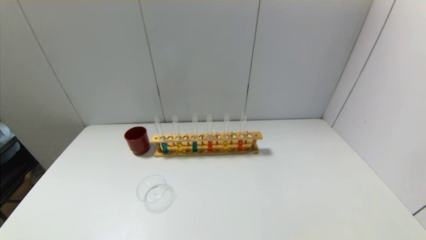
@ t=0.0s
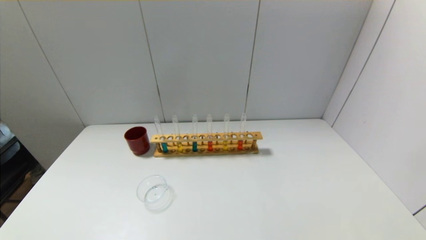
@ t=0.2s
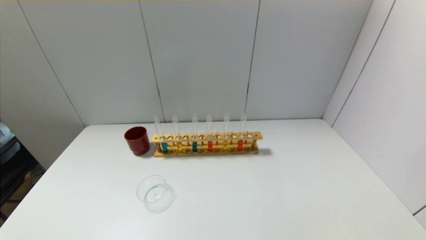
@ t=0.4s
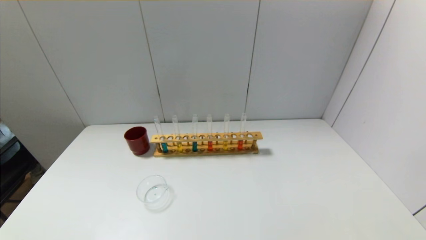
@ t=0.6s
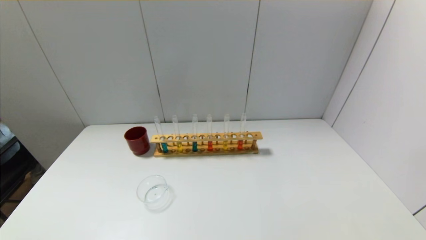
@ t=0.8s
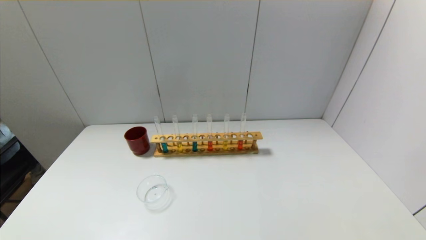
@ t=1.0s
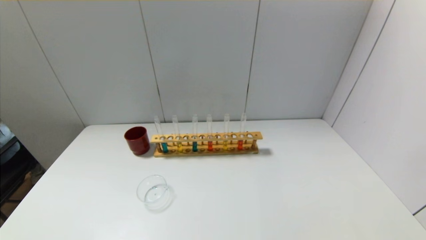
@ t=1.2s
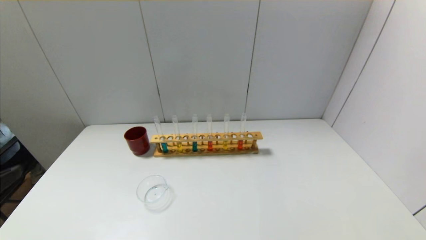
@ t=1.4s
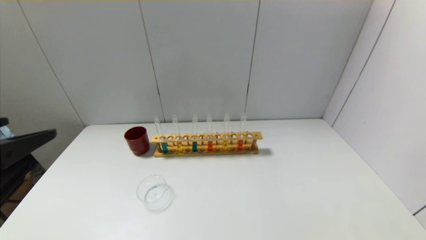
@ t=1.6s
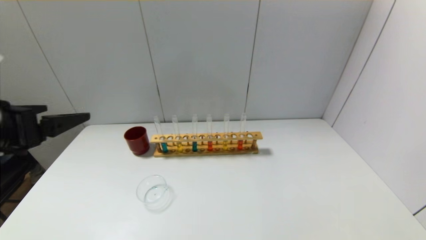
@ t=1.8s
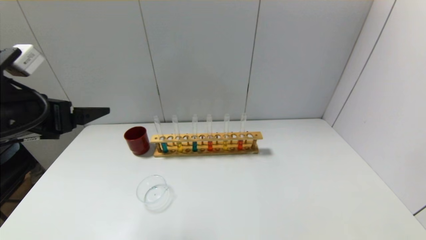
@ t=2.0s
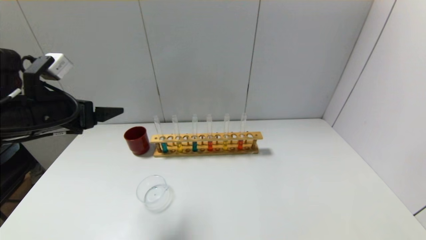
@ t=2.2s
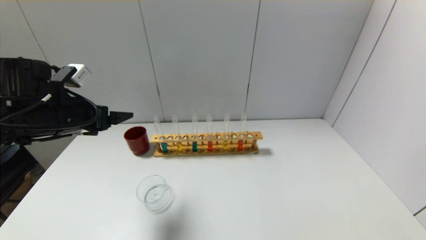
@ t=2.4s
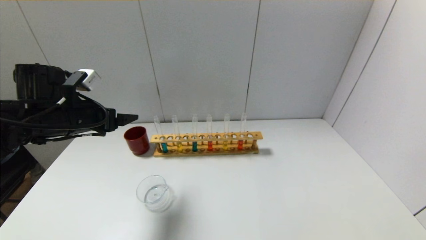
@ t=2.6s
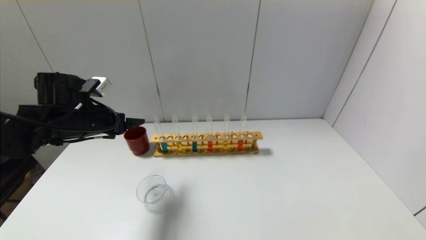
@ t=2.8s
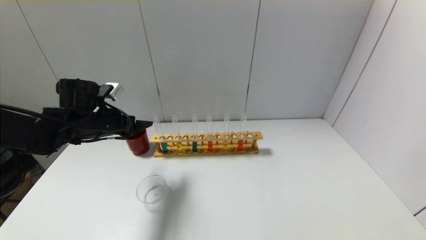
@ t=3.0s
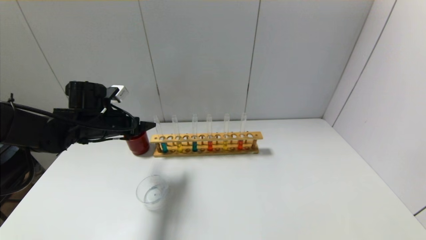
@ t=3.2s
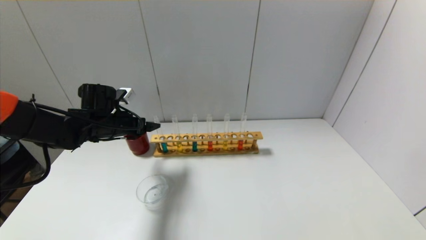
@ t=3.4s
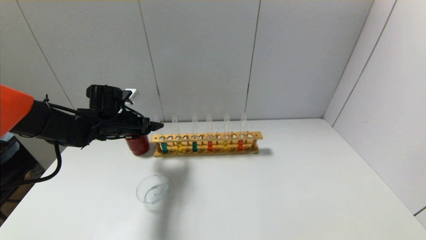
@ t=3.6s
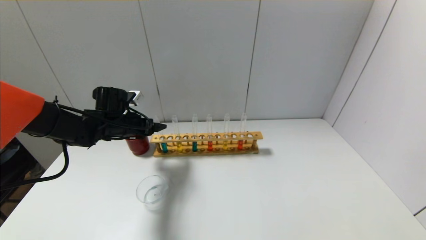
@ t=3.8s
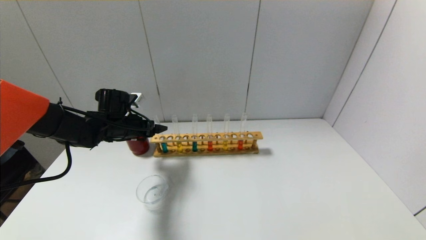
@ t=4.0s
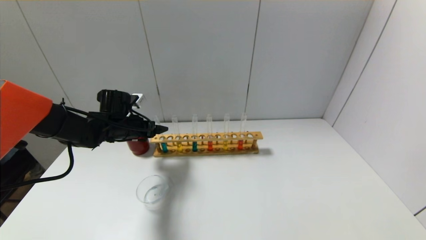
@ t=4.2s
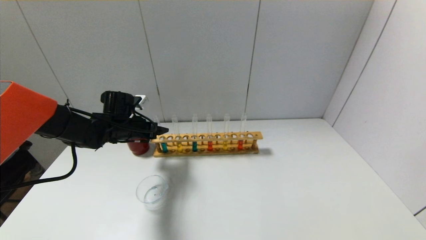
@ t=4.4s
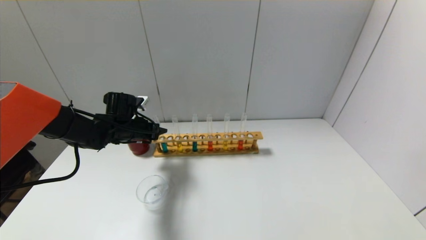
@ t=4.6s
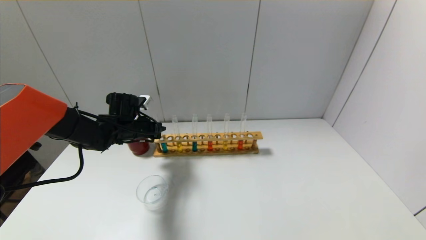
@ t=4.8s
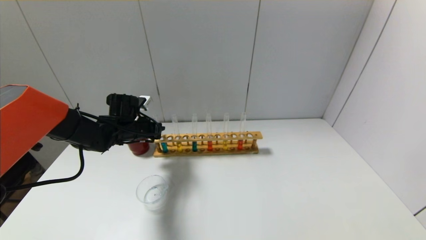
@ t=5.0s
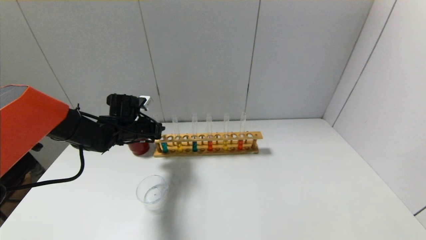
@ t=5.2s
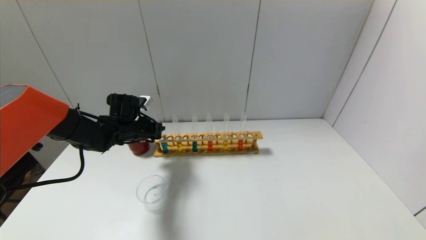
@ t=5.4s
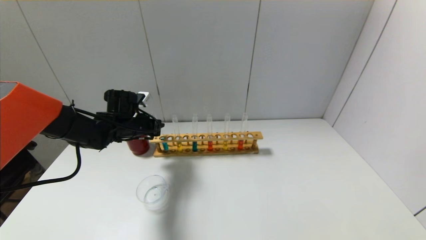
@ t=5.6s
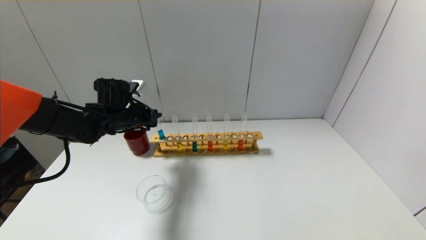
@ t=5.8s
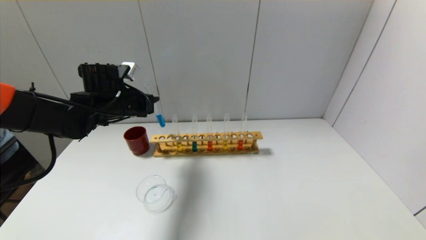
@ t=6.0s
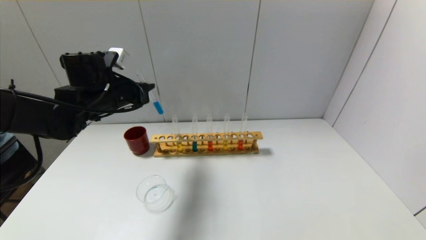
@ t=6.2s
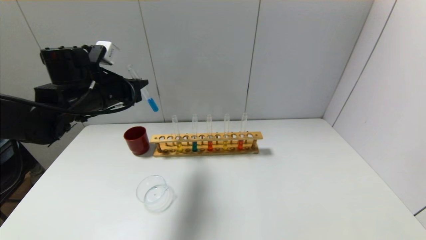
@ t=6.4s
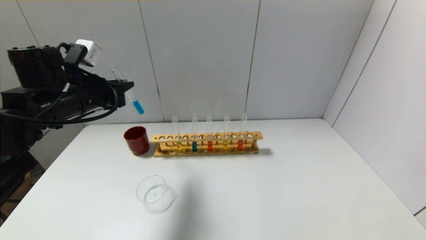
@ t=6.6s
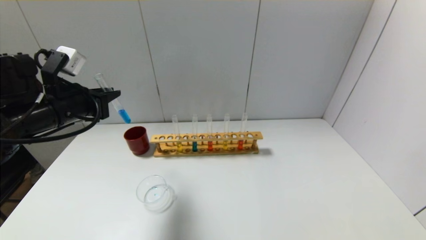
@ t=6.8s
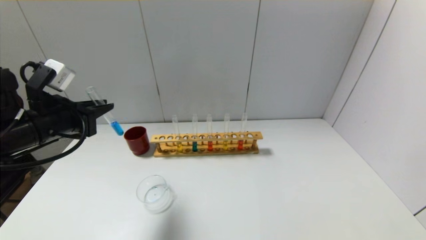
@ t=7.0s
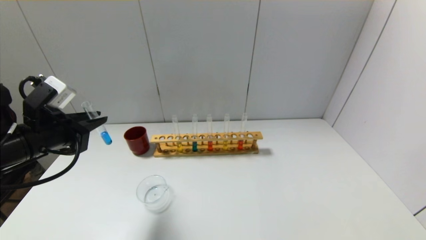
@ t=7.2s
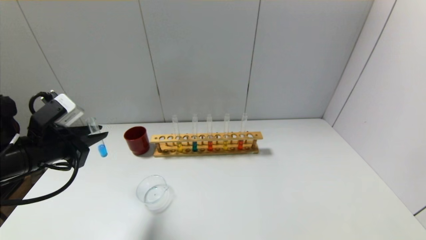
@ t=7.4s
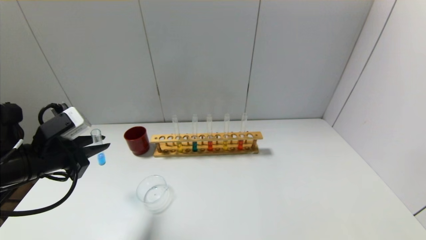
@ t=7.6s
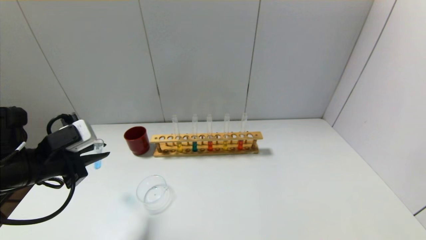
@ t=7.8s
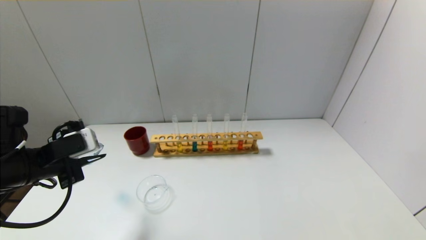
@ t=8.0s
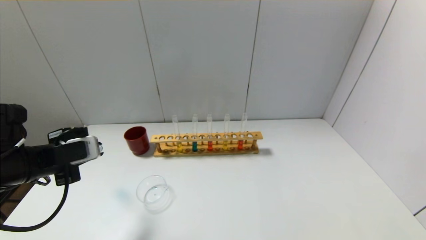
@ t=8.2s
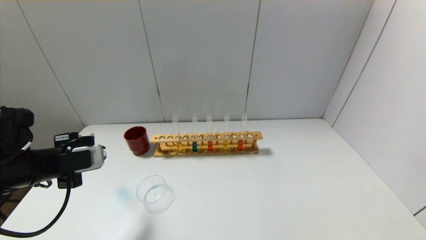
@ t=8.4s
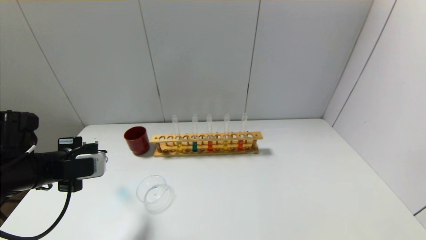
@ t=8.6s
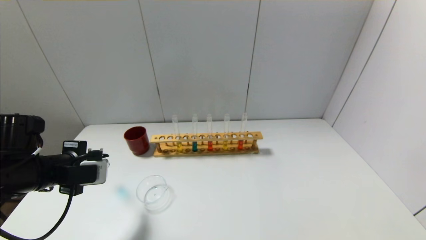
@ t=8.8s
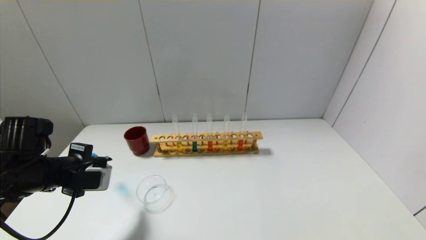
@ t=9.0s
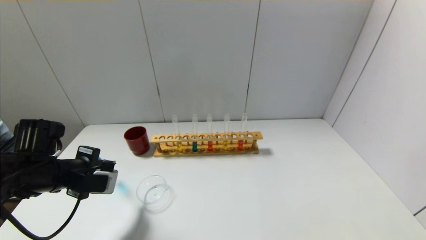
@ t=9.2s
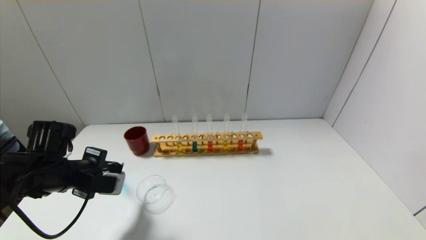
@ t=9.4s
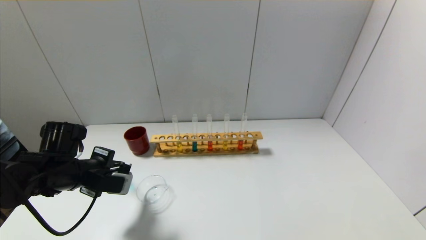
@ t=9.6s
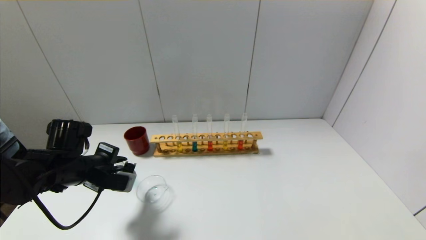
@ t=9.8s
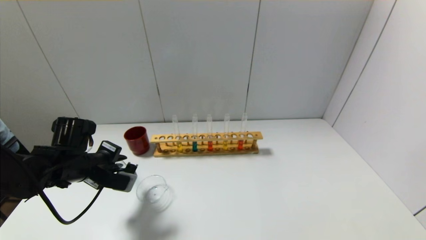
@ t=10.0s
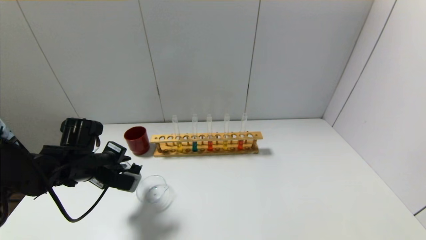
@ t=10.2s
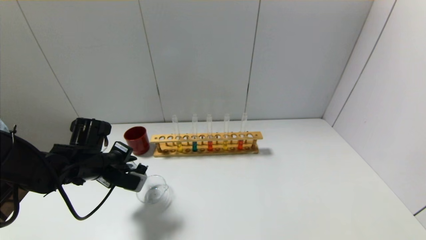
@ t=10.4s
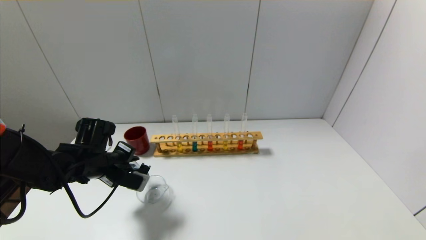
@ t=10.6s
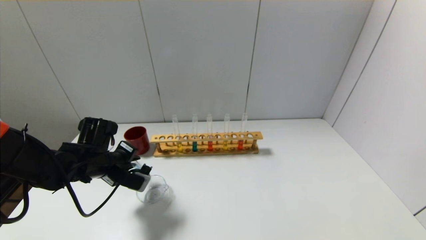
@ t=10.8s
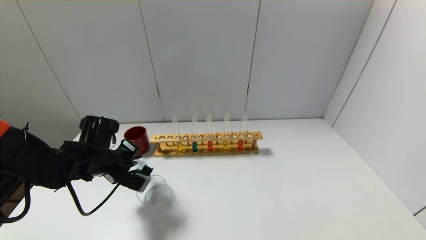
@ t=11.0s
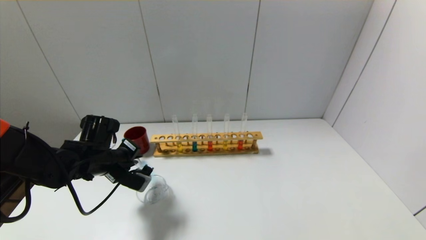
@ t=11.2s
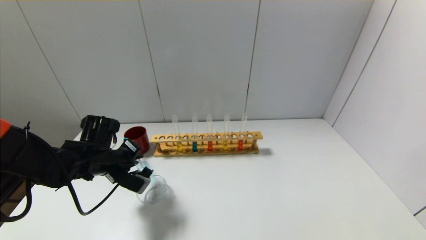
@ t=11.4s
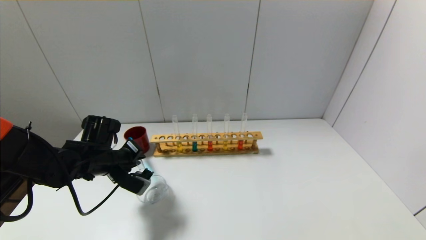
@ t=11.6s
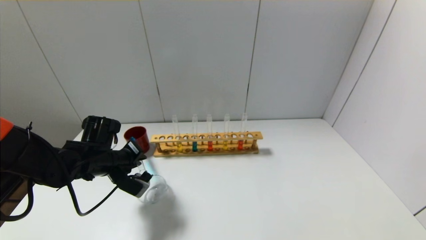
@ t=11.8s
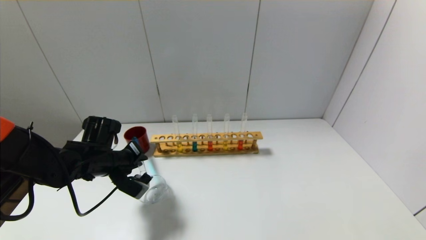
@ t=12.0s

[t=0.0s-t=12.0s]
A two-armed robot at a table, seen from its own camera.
Step, t=0.0s to t=5.0s: Grasp the blue reagent with the left gripper.
t=0.0s to t=1.6s: The left gripper shifts approximately 25 cm upward and forward.
t=1.6s to t=3.0s: The left gripper shifts about 25 cm forward and downward.
t=3.0s to t=4.4s: The left gripper is displaced forward and downward by about 10 cm.
t=4.4s to t=6.0s: The left gripper is displaced upward by roughly 10 cm, and closes its fingers.
t=6.0s to t=7.6s: The left gripper moves backward and to the left, approximately 15 cm.
t=9.0s to t=10.4s: The left gripper moves forward, about 5 cm.
t=10.4s to t=12.0s: The grippers move only a little.

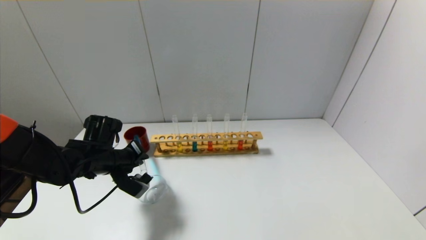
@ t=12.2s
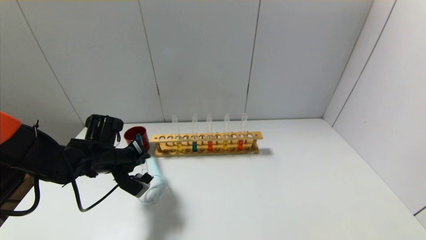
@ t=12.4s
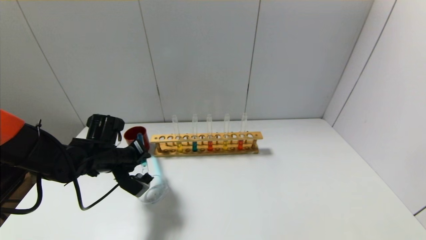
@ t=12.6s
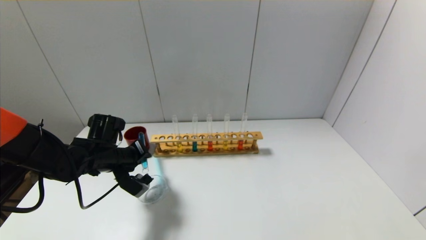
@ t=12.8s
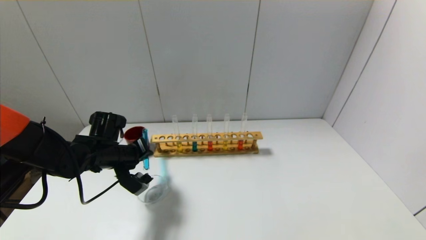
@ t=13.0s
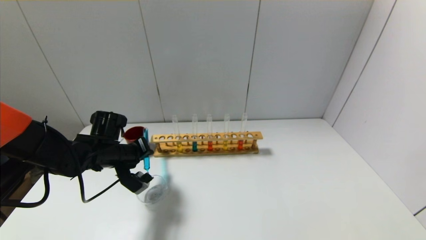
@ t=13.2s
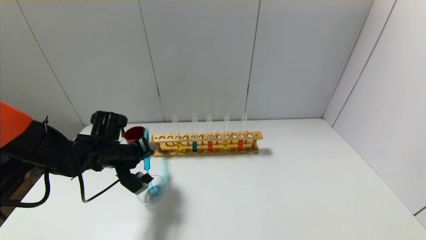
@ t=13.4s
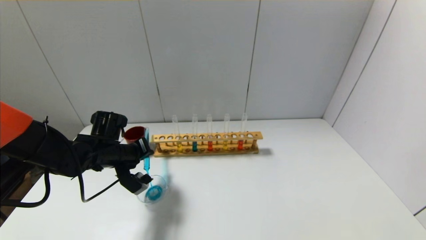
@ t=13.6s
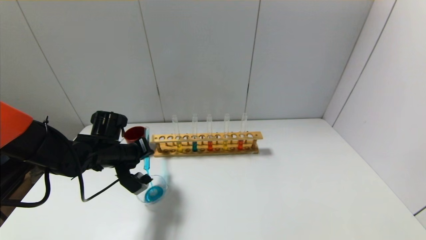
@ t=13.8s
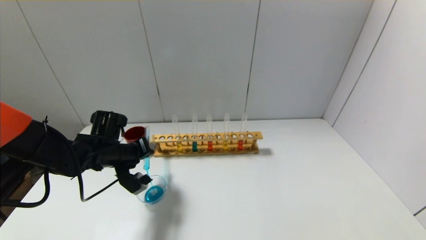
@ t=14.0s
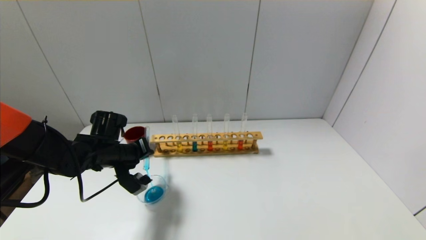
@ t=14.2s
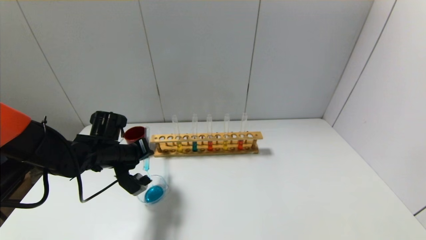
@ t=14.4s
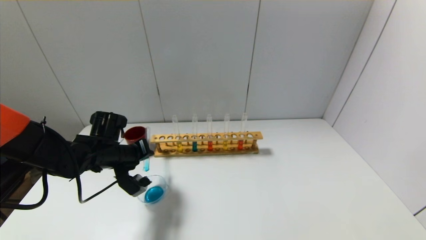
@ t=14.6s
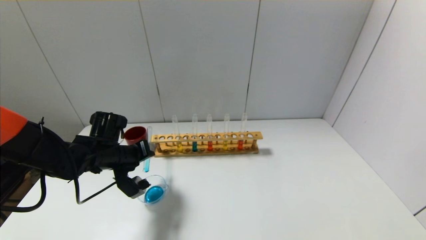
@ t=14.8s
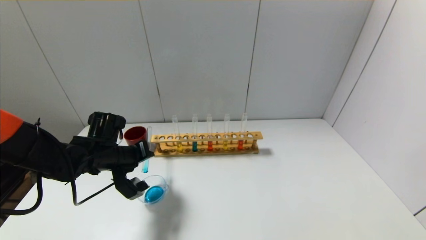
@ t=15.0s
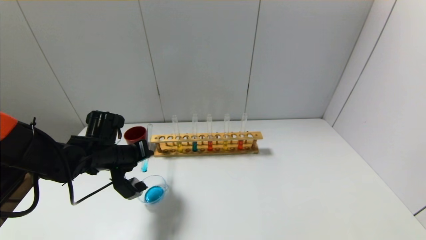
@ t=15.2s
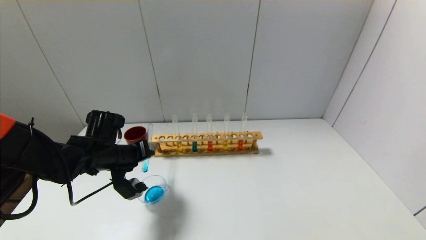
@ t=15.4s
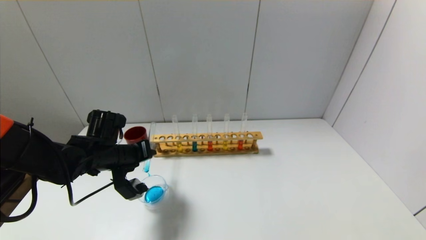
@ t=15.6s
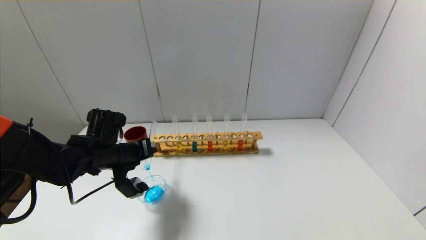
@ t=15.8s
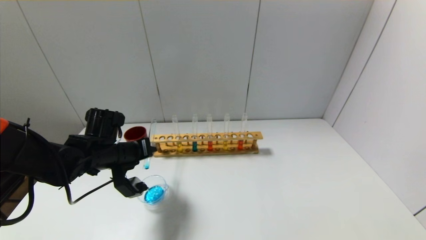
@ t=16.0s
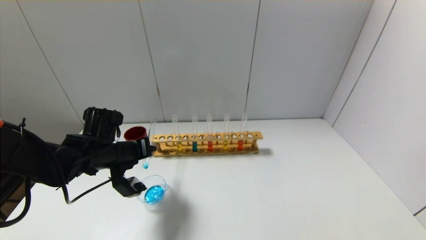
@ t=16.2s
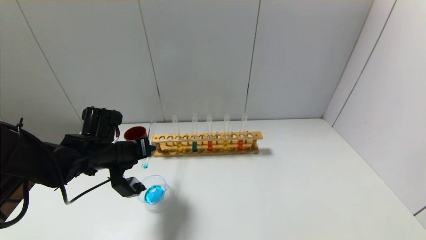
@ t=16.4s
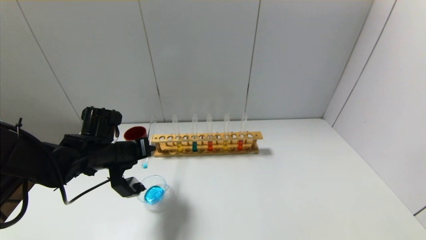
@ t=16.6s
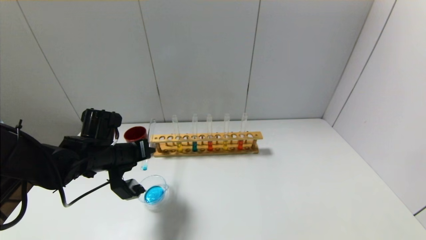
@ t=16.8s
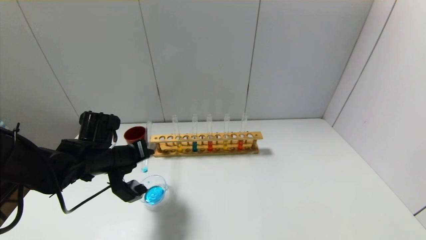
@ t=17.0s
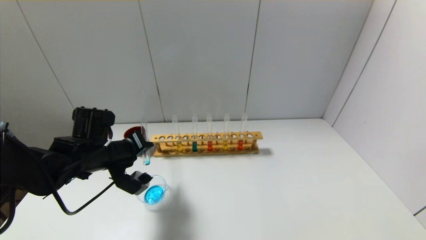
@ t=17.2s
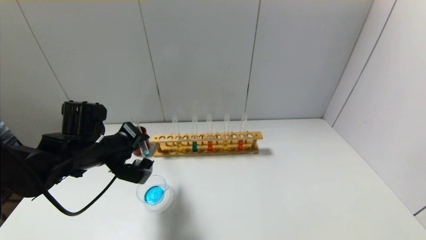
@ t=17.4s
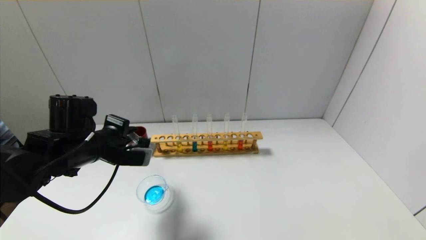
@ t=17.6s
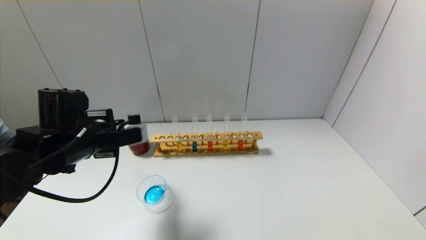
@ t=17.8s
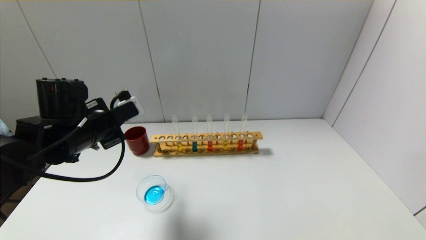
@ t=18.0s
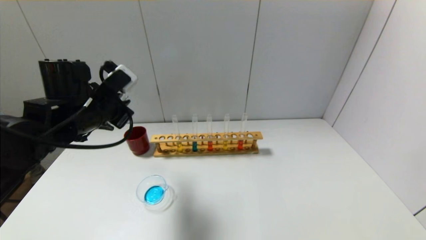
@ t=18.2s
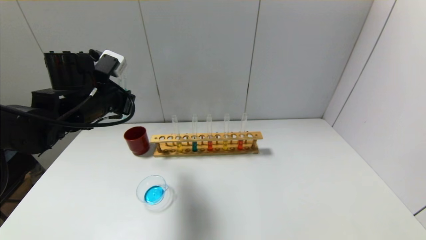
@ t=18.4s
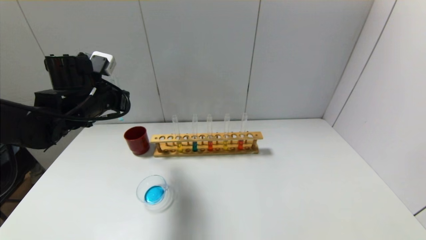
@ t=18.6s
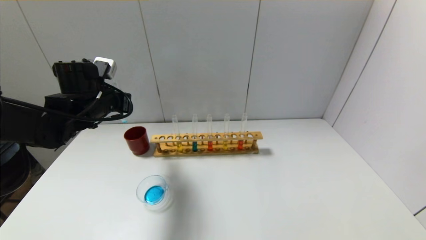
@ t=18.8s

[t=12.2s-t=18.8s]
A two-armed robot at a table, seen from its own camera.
Step, t=12.2s to t=17.4s: Pour the blue reagent into the graduated cylinder with the left gripper.
t=12.2s to t=13.8s: The grippers move only a little.
t=13.8s to t=17.2s: The grippers stay close to where they were, moving slightly.
t=17.2s to t=18.8s: The left gripper goes some 10 cm upward and forward.
